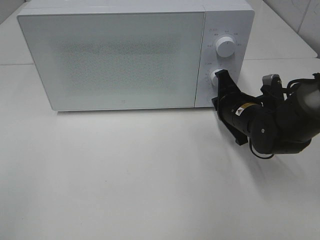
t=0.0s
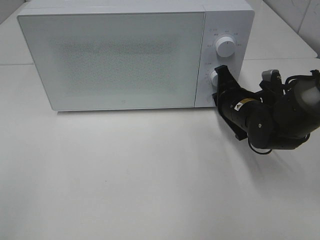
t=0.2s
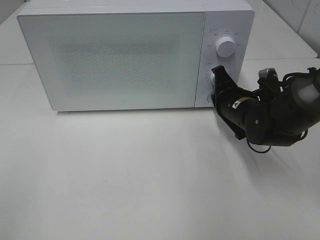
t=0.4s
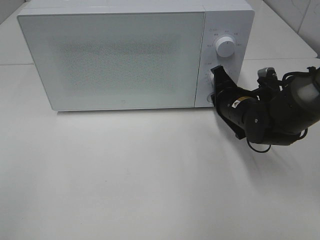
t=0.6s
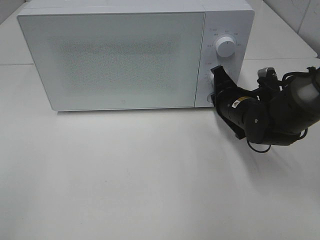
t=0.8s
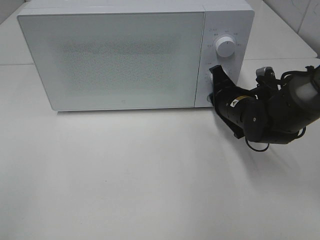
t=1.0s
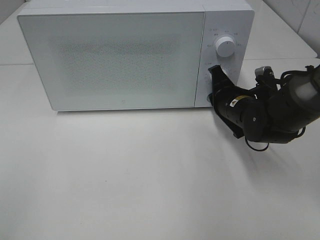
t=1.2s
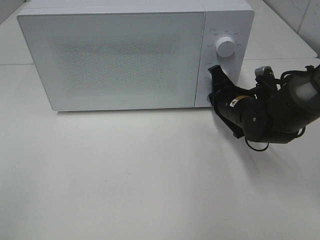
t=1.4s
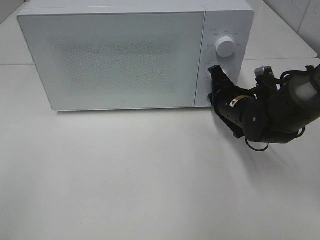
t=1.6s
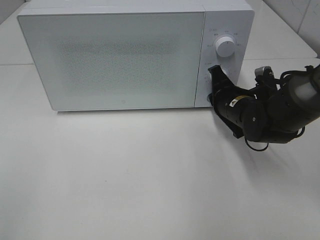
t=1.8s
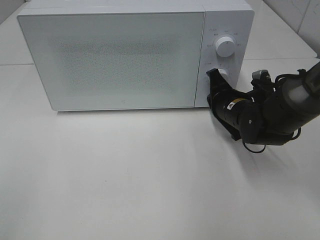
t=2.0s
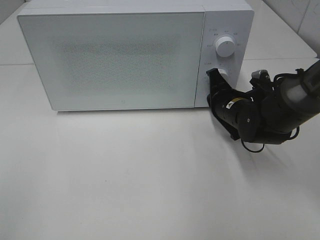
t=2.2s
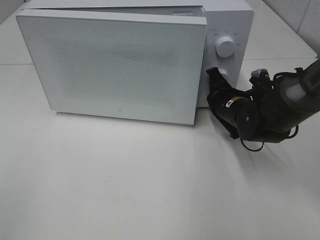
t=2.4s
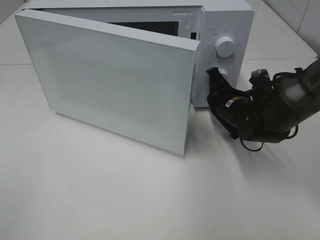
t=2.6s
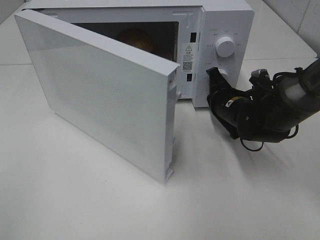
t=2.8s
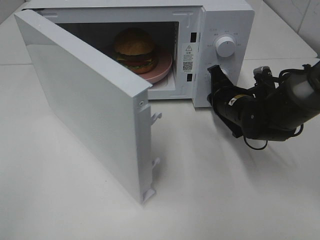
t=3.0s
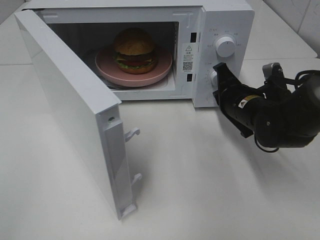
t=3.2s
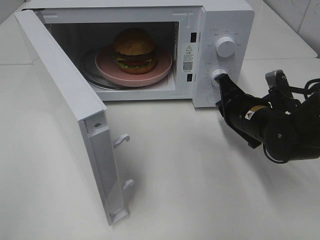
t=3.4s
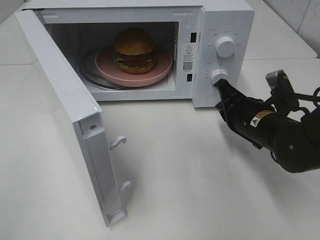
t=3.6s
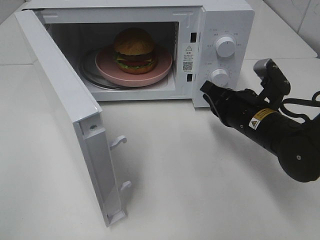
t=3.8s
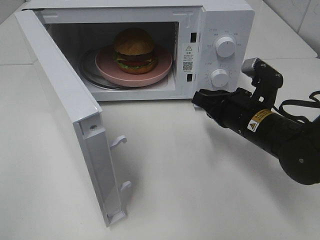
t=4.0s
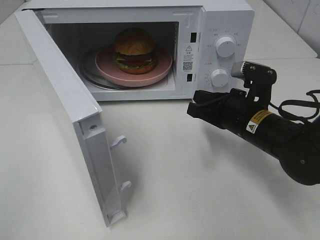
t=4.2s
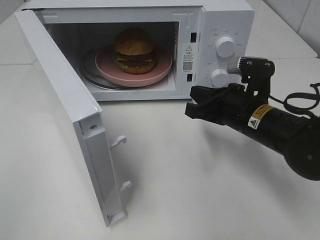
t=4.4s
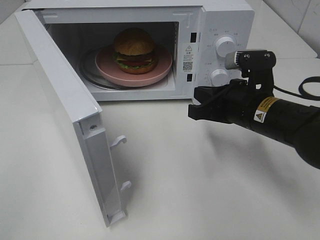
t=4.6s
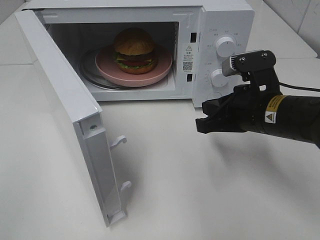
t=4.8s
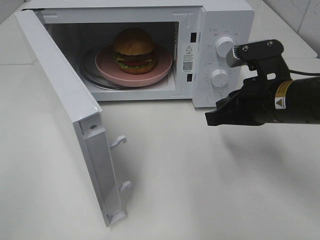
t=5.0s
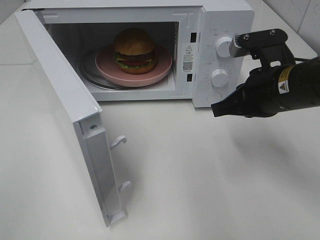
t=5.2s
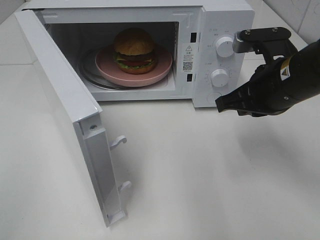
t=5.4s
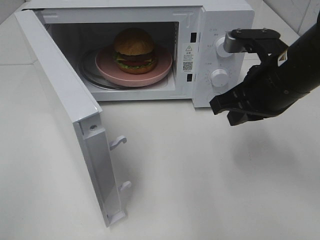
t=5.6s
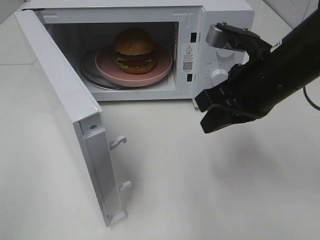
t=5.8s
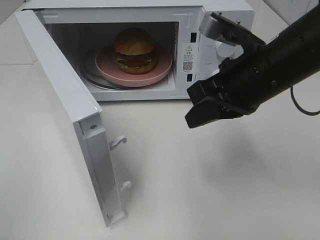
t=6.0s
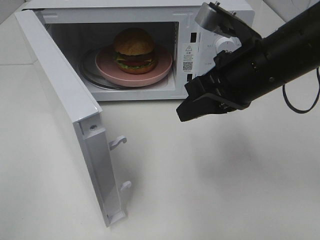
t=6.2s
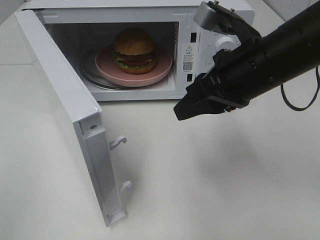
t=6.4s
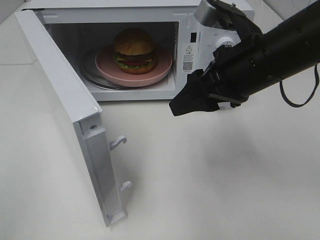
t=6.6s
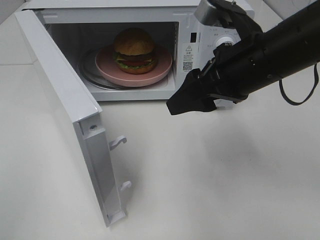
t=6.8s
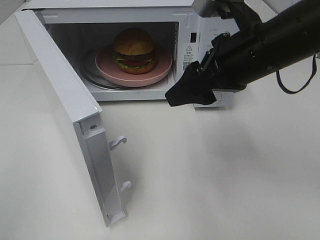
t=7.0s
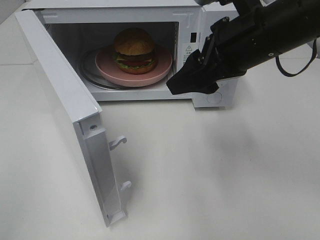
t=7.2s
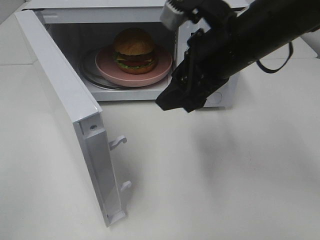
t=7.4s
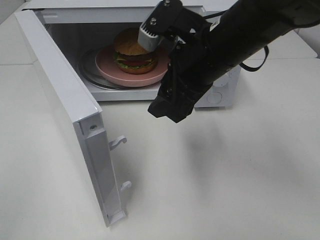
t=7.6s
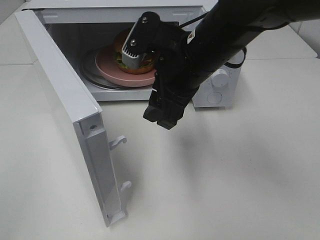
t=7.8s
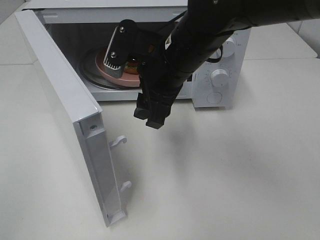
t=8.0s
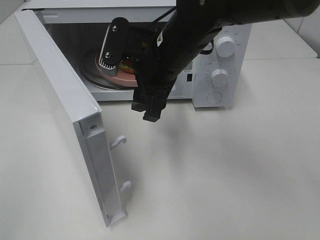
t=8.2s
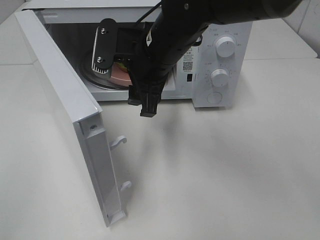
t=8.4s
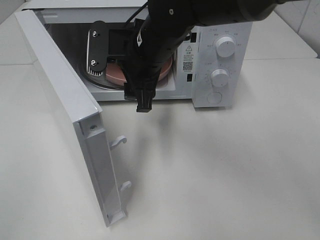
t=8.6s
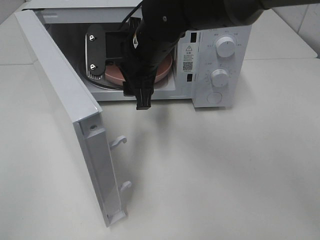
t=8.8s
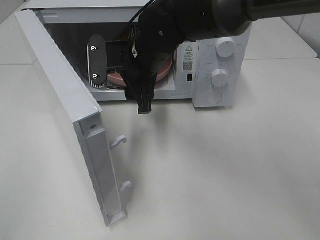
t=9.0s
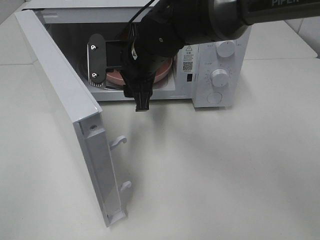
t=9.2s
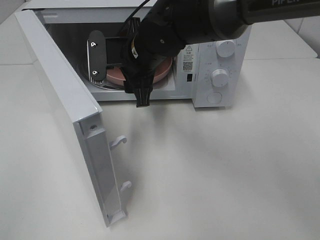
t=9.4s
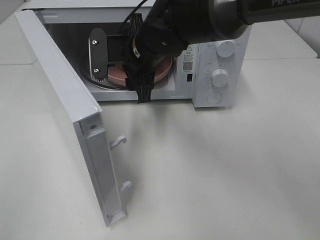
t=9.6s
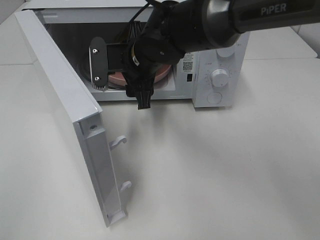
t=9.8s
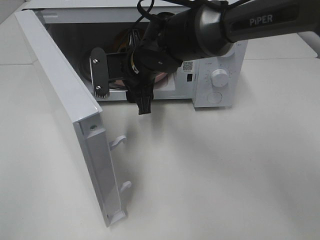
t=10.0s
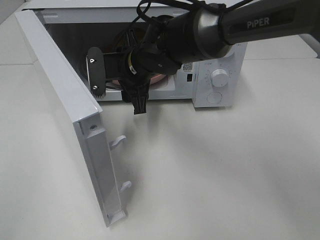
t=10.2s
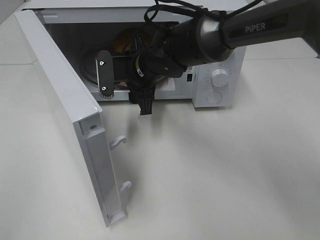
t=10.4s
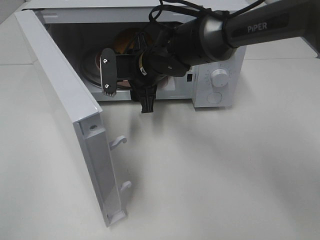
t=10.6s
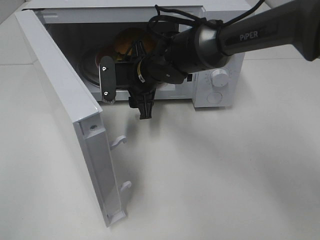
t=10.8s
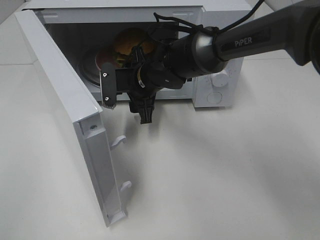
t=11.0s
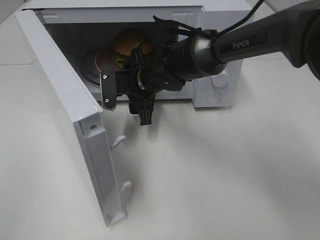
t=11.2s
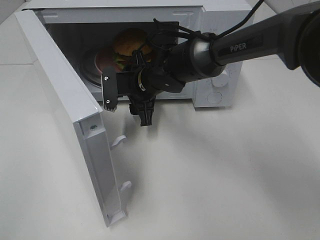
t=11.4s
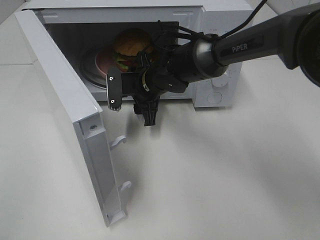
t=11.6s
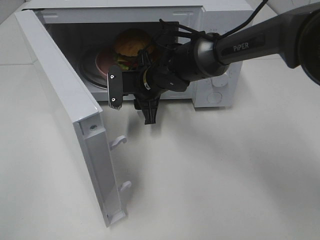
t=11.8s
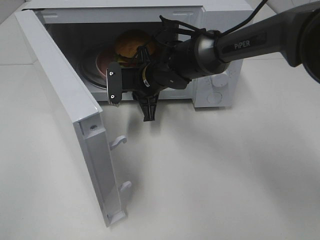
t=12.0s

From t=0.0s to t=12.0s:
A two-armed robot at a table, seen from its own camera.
Task of the whole recording: Heat the burger.
Step, from t=0.0s to t=3.0s: Right hand: press the switch.
From t=0.0s to t=1.6s: The grippers stay close to where they were, moving slightly.
From t=3.0s to t=4.4s: The right gripper moves backward, approximately 10 cm.
From t=4.4s to t=6.0s: The right gripper goes some 10 cm upward.
From t=6.0s to t=7.6s: The right gripper goes approximately 5 cm to the left, and opens.
From t=7.6s to t=9.0s: The right gripper shifts some 15 cm to the left, forward and downward.
From t=9.0s to t=10.4s: The right gripper changes place by roughly 5 cm.
From t=10.4s to t=12.0s: The right gripper closes.

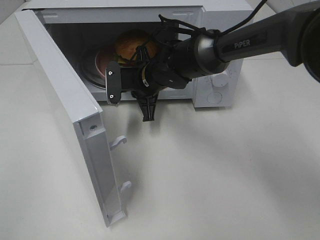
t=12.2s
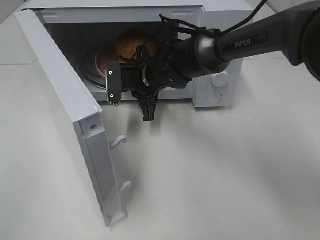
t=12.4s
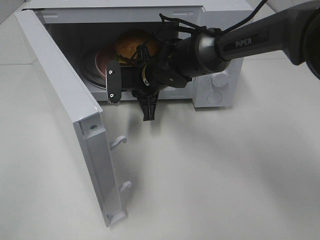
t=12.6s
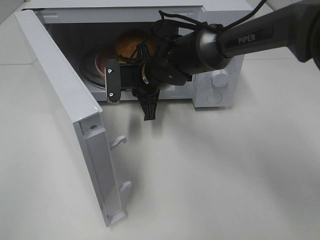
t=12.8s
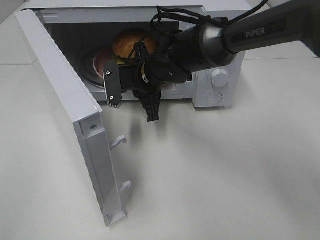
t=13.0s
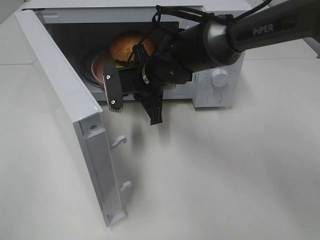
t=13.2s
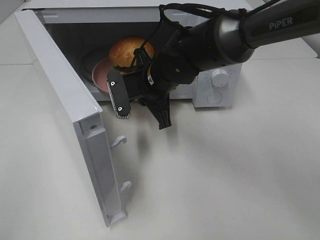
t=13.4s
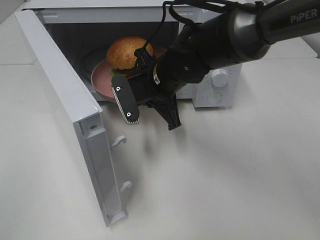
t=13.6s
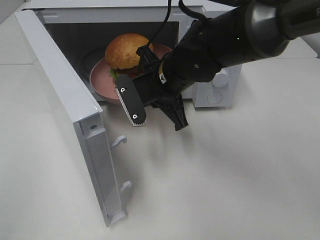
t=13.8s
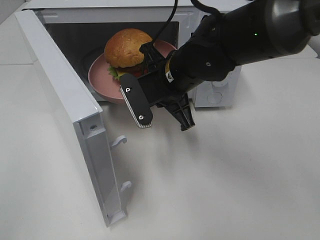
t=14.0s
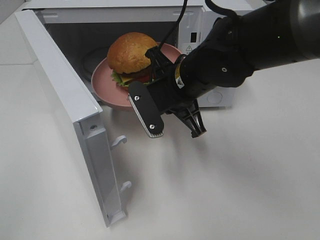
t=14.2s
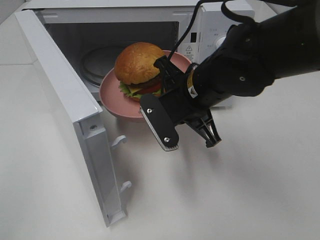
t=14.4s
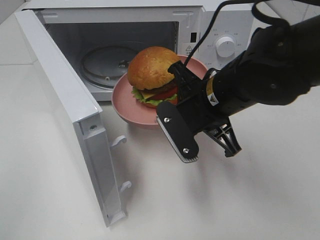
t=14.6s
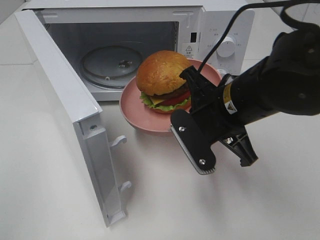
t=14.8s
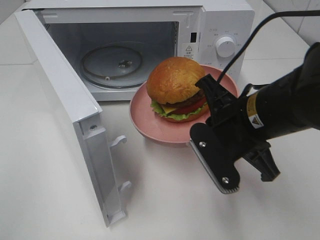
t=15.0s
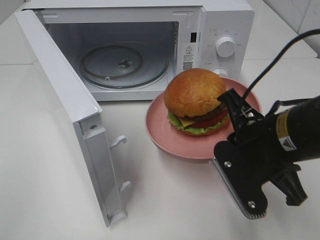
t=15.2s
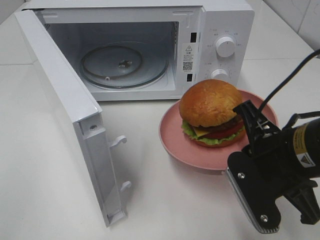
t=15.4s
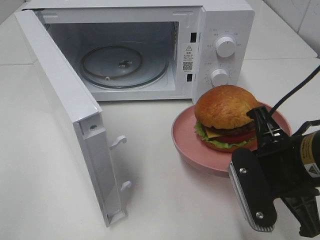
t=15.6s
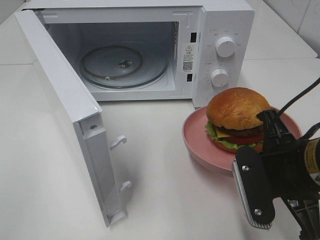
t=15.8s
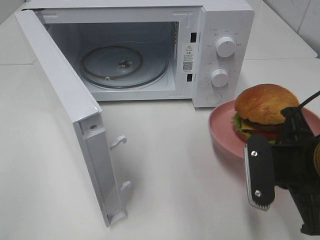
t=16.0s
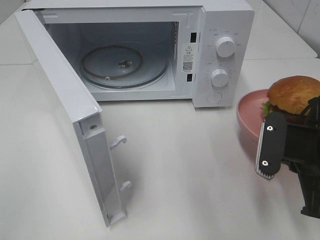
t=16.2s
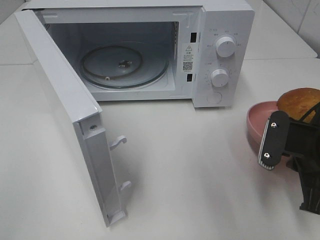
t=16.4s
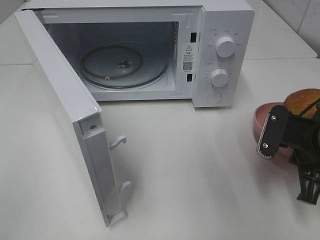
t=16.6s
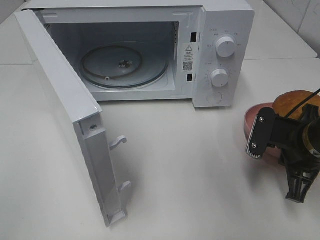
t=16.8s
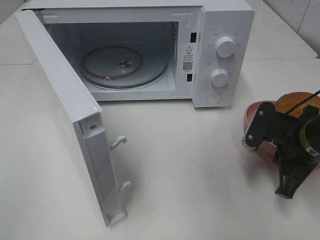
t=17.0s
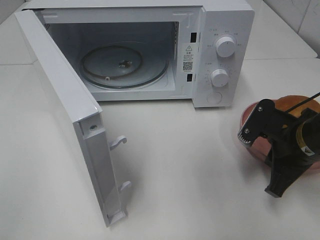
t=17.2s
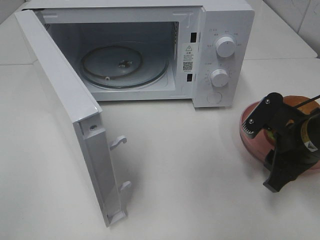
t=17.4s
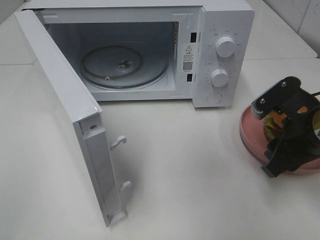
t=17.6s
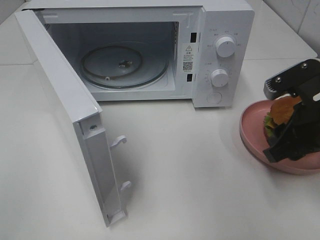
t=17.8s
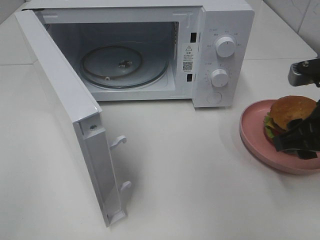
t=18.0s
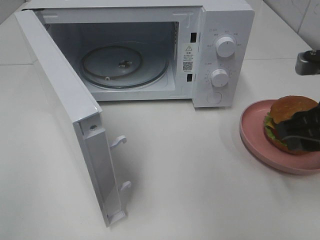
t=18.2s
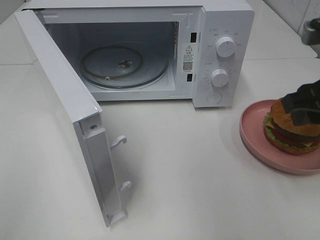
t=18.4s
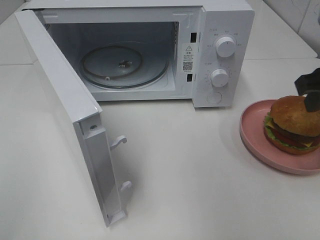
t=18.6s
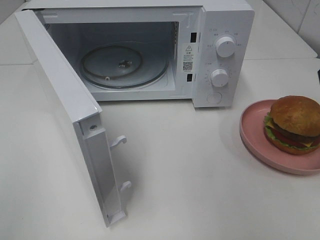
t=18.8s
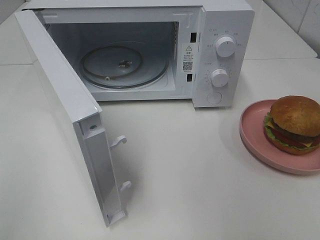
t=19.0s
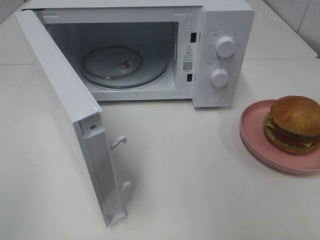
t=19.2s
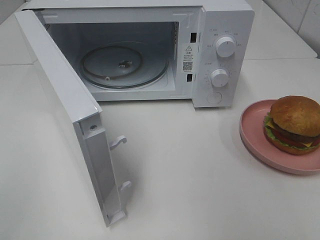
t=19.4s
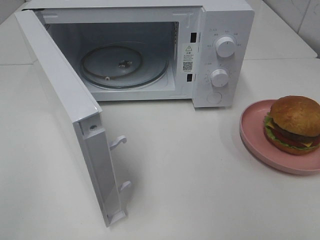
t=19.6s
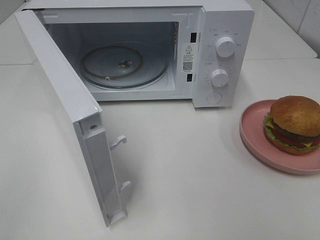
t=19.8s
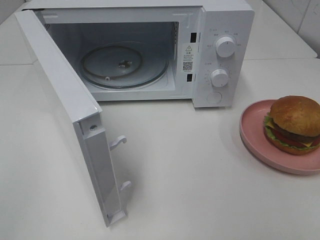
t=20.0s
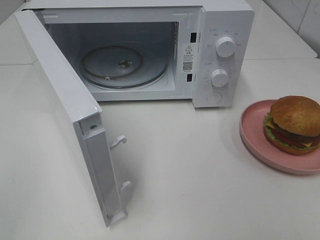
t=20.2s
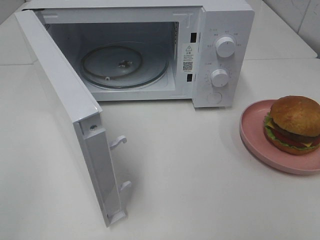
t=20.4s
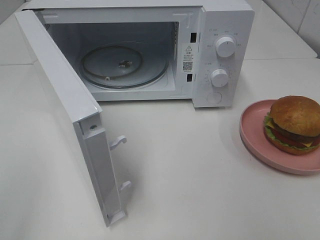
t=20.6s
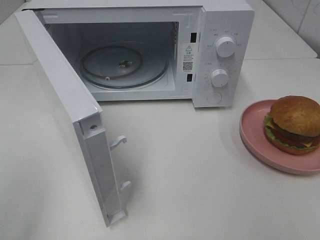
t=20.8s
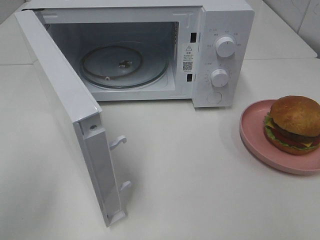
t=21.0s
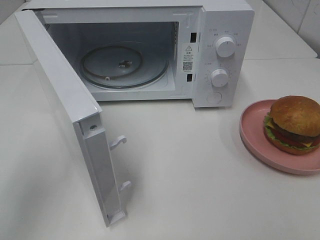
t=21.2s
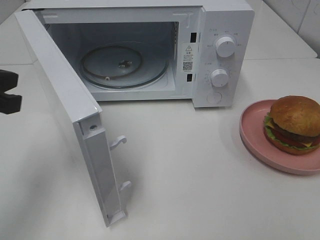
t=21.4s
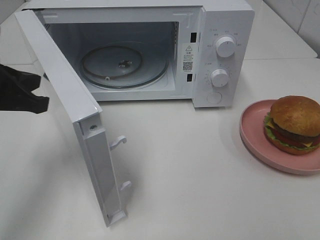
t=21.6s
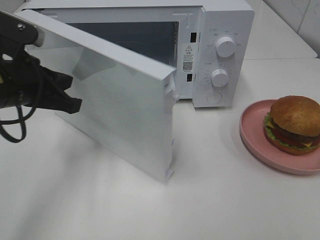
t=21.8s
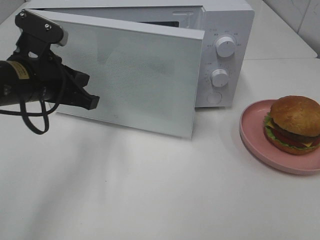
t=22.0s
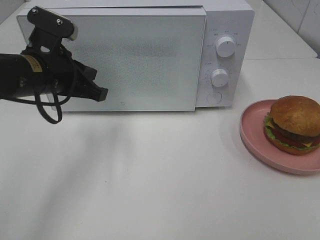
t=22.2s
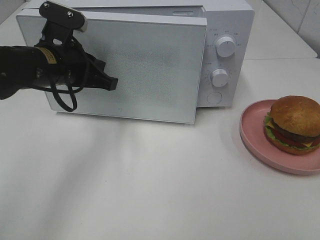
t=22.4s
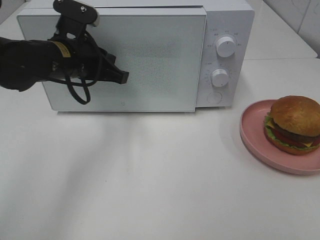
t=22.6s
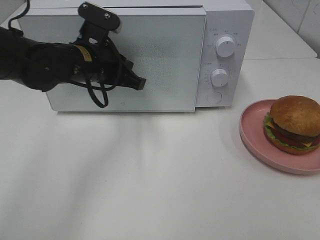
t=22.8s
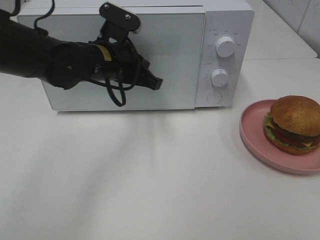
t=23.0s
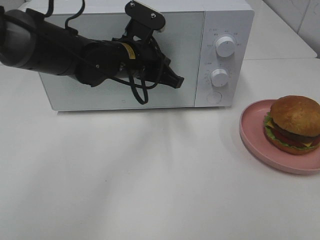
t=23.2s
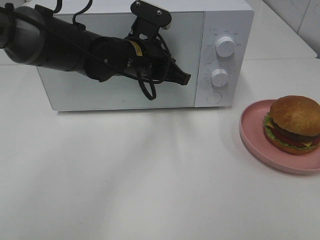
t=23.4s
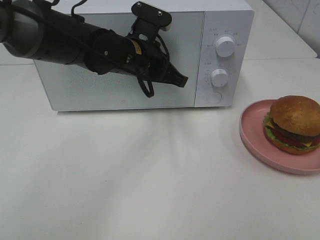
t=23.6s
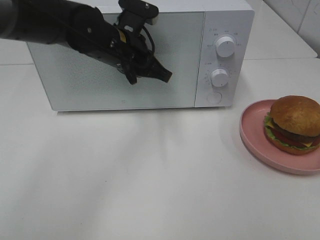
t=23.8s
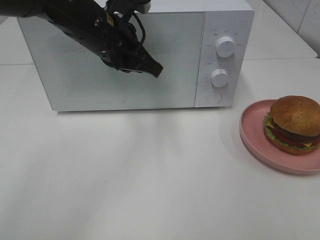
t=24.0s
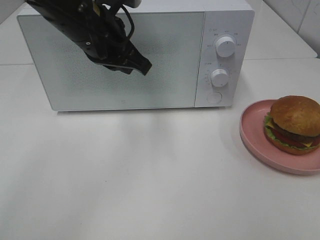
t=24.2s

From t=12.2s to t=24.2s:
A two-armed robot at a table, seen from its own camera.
Task of the whole recording: Heat the burger.
Step, from t=12.4s to t=17.2s: Right hand: place the plate on the table.
Step, from t=17.4s to t=23.6s: Left hand: close the microwave door.
From t=12.2s to t=13.8s: The right gripper is displaced backward and upward by about 10 cm.
From t=13.8s to t=15.2s: The right gripper travels backward and to the right by some 20 cm.
From t=15.2s to t=16.6s: The right gripper is displaced to the right and downward by approximately 10 cm.
From t=16.6s to t=18.2s: The right gripper heads upward, covering roughly 10 cm, and opens up.
From t=18.2s to t=19.8s: The right gripper heads backward and upward, covering roughly 20 cm.
From t=19.8s to t=21.2s: The left gripper goes approximately 20 cm forward.
From t=21.2s to t=22.6s: The left gripper shifts about 20 cm forward, to the right and downward.
From t=22.6s to t=24.2s: The left gripper moves upward, approximately 5 cm.
